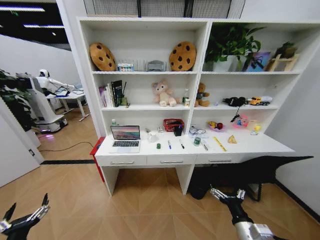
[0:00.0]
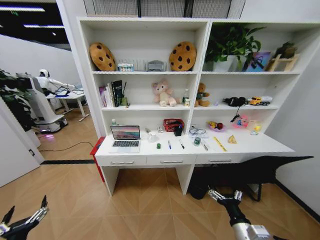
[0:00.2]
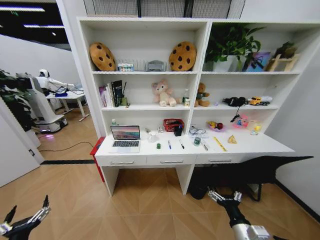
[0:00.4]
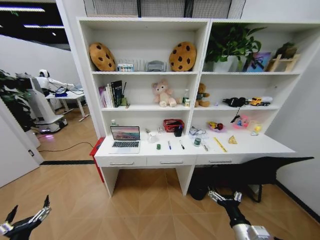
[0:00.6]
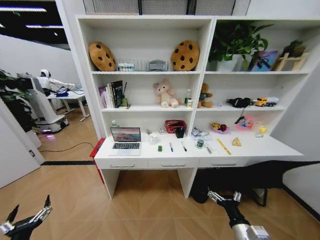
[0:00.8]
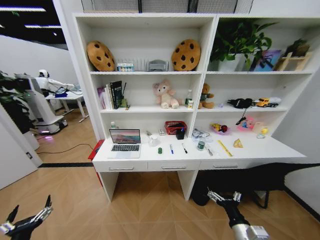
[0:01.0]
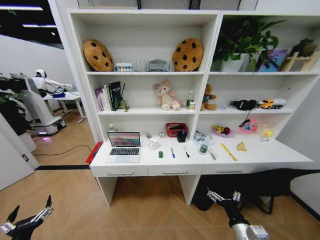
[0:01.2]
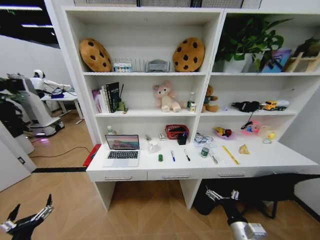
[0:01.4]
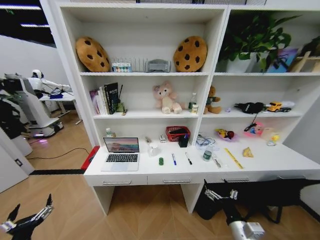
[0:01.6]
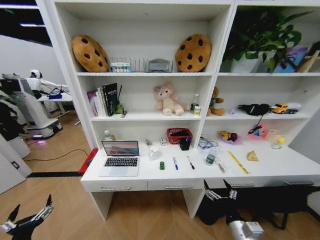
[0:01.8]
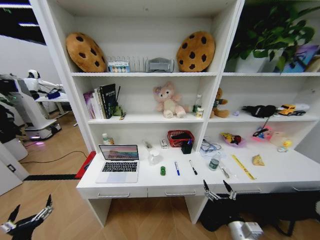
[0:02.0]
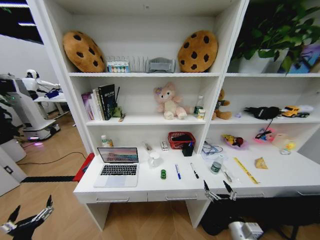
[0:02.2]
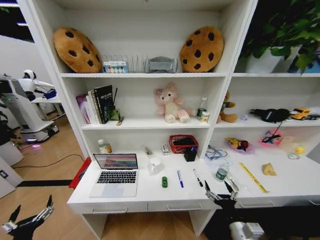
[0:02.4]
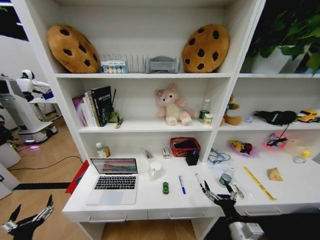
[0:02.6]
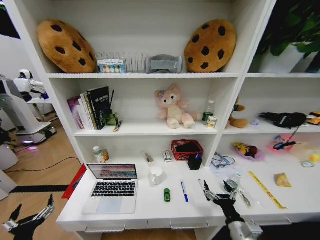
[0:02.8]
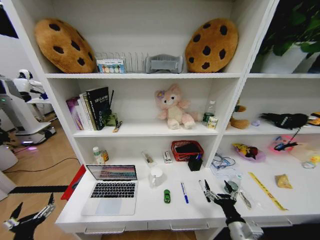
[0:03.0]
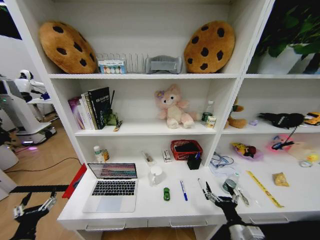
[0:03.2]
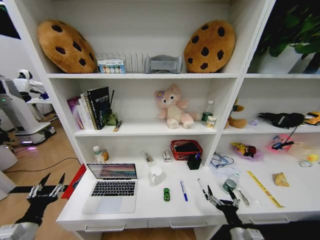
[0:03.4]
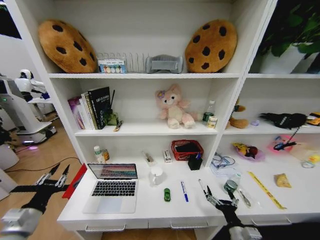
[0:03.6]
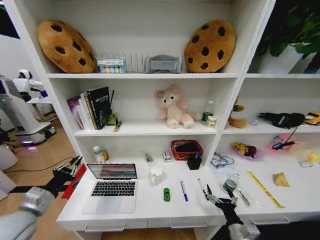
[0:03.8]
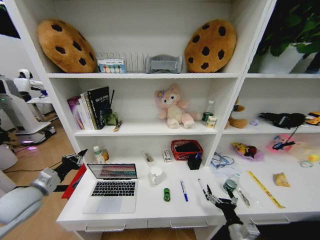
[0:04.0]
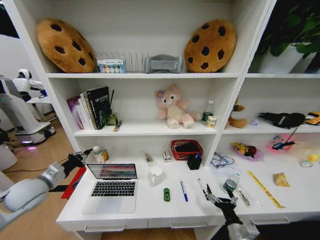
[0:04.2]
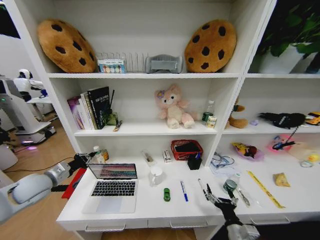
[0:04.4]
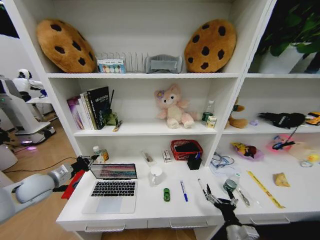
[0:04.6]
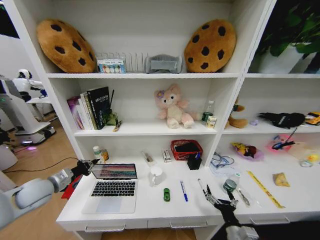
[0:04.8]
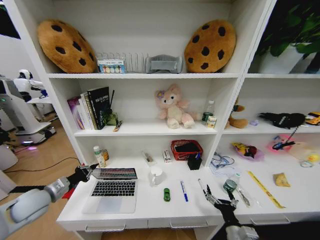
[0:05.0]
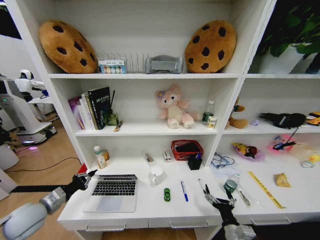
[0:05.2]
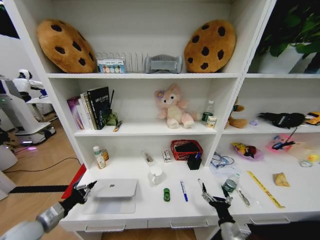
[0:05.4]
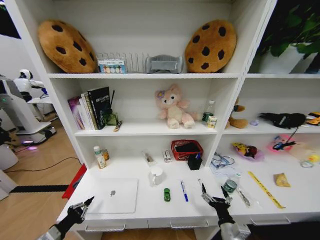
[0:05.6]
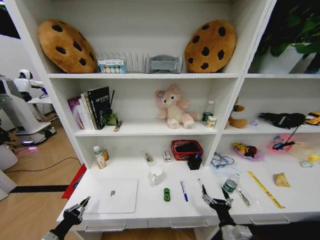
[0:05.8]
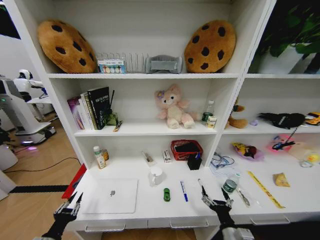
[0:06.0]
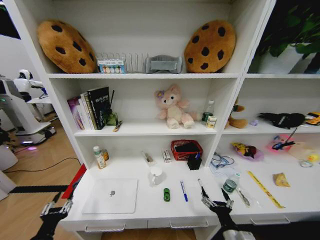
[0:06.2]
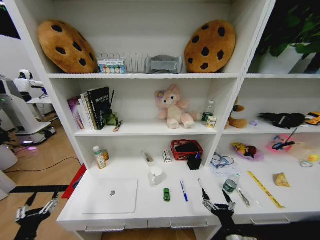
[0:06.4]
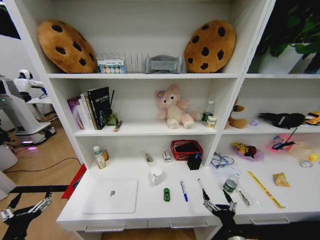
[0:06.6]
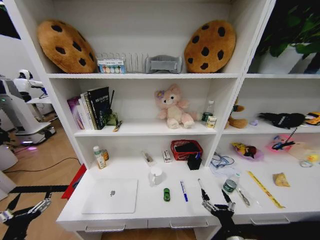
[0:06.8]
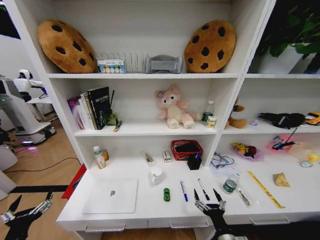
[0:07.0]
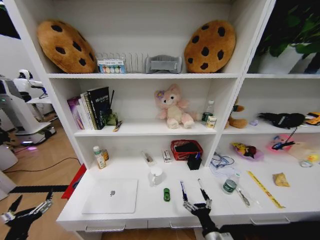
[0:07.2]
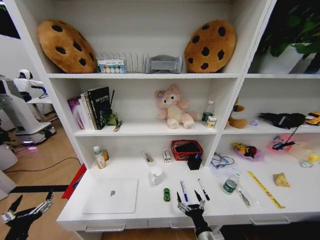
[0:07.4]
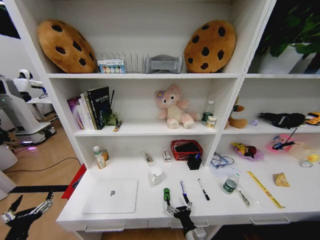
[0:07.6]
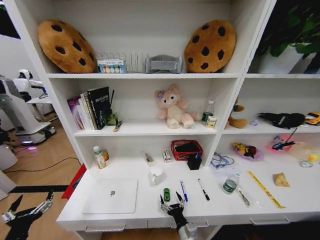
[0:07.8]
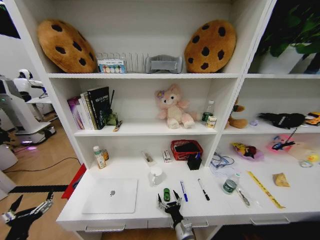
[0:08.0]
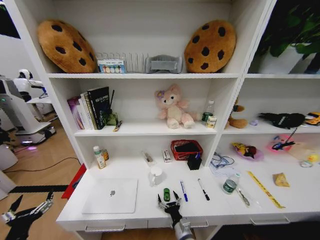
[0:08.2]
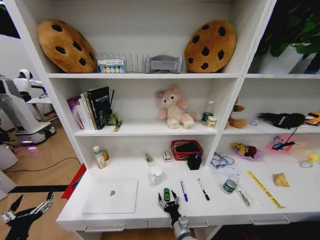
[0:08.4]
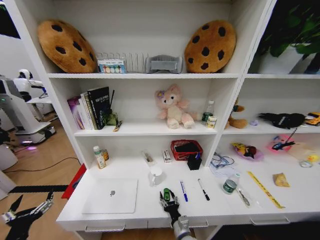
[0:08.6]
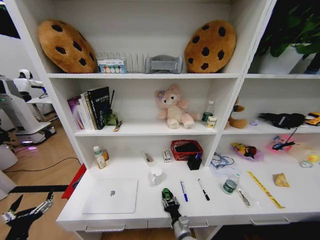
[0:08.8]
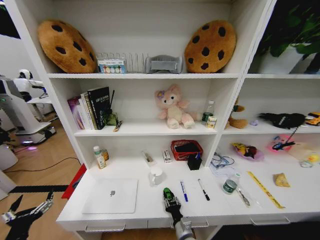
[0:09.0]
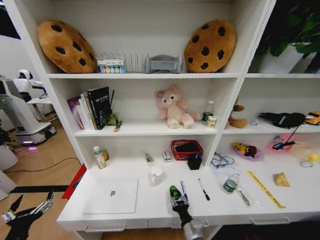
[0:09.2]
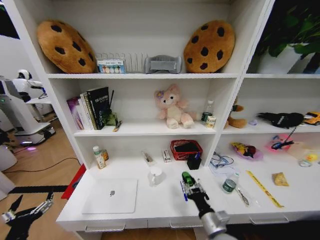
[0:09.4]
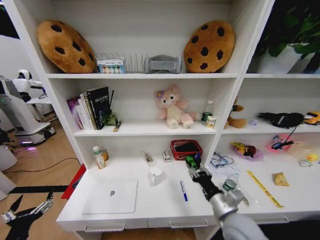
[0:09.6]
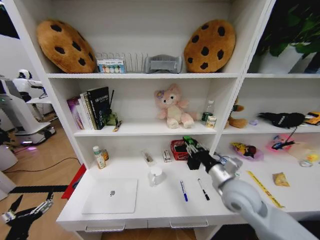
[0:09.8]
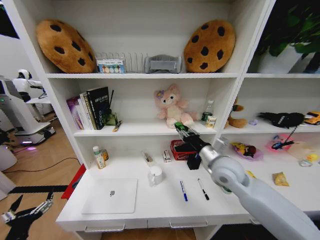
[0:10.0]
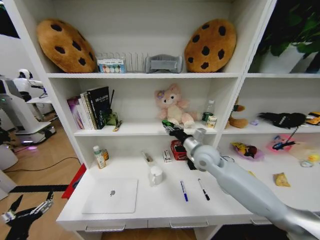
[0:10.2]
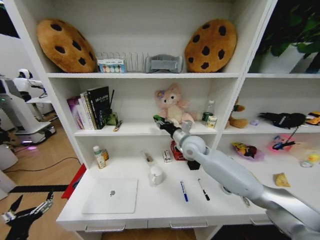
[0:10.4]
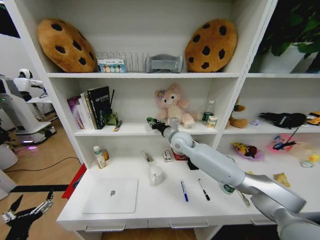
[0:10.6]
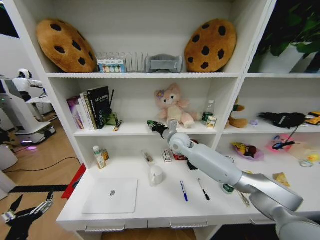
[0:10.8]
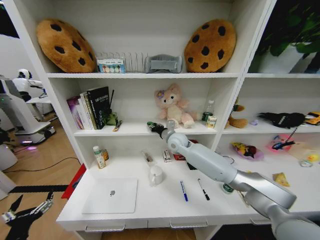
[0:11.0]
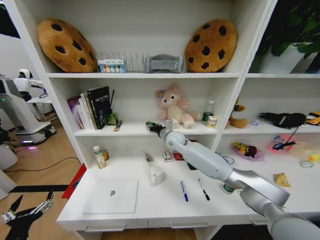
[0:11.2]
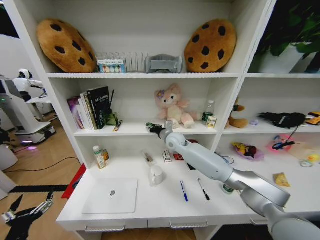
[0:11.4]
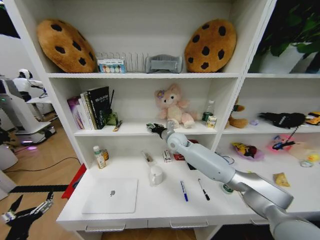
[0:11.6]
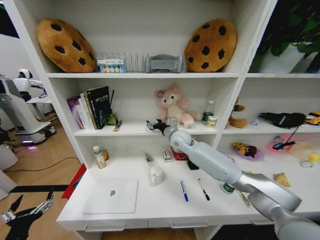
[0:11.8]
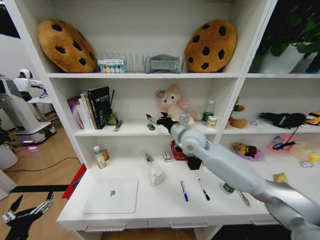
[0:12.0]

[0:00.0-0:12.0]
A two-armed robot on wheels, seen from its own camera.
Task of the whole recording: Organize the objects on the table.
0:03.0 to 0:04.4: The left gripper heads forward and upward, covering approximately 25 cm, and closes up.
0:04.4 to 0:06.0: The left gripper shifts roughly 25 cm backward and downward.
0:06.0 to 0:07.6: The left gripper shifts by approximately 5 cm, and opens up. Meanwhile the right gripper is displaced to the left by some 10 cm.
0:07.6 to 0:09.0: The right gripper shifts by roughly 5 cm, and closes its fingers.
0:09.0 to 0:10.4: The right gripper moves upward and forward, some 40 cm.
0:10.4 to 0:12.0: The right gripper moves some 5 cm forward and comes back, and opens up.

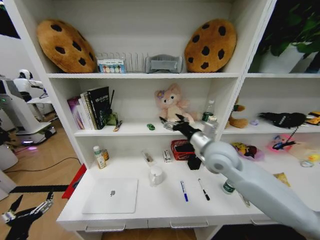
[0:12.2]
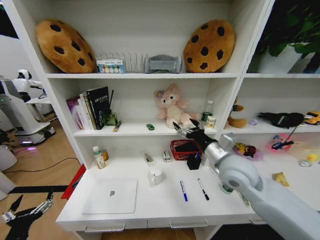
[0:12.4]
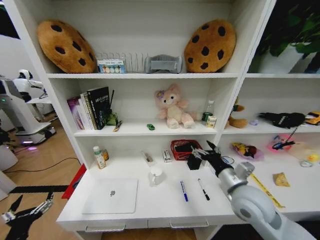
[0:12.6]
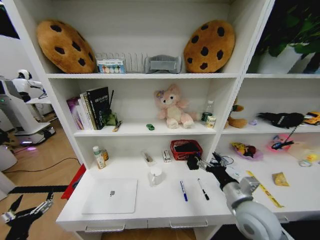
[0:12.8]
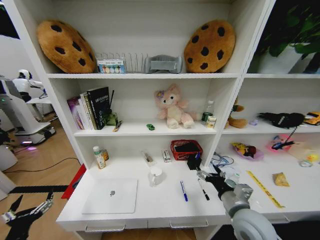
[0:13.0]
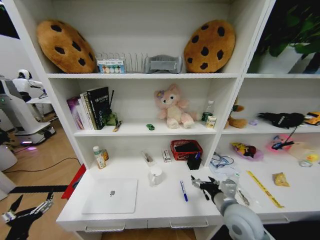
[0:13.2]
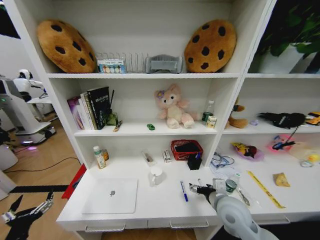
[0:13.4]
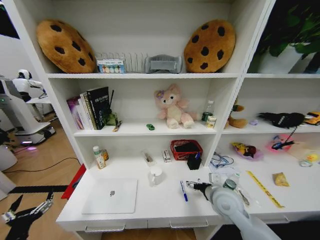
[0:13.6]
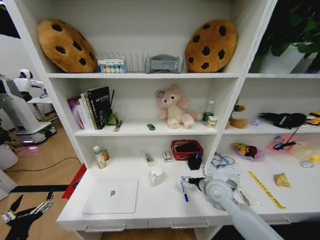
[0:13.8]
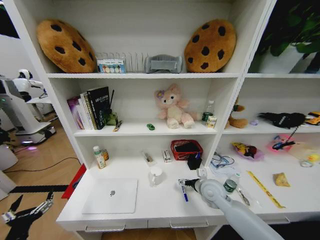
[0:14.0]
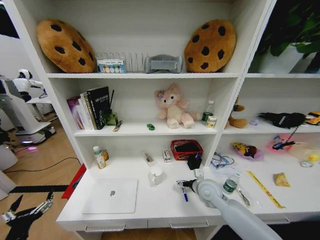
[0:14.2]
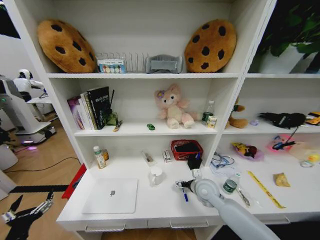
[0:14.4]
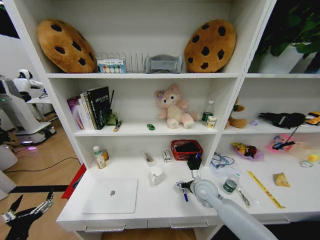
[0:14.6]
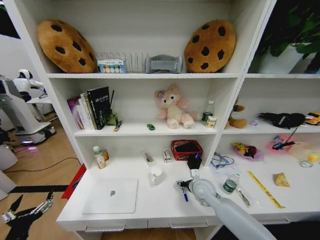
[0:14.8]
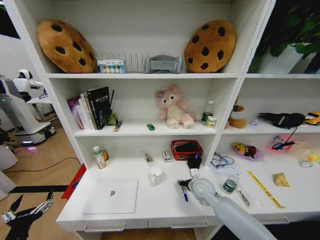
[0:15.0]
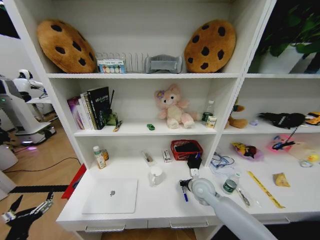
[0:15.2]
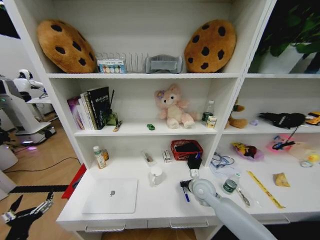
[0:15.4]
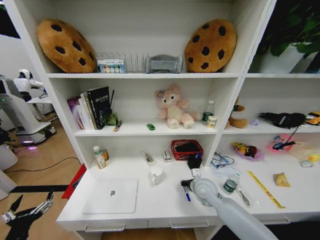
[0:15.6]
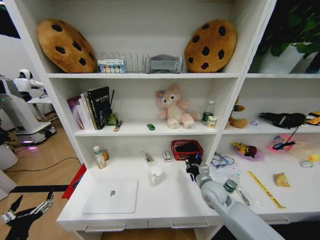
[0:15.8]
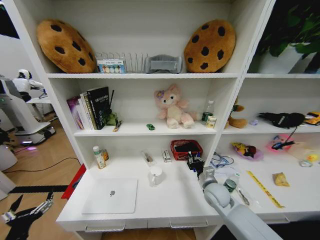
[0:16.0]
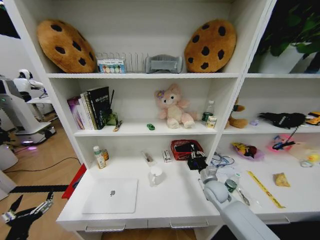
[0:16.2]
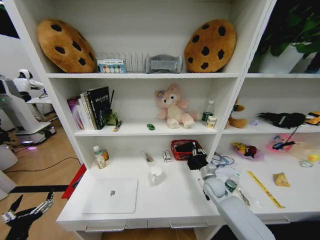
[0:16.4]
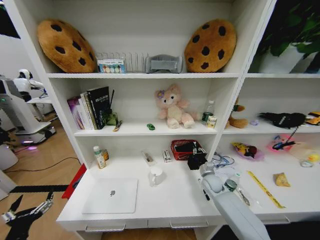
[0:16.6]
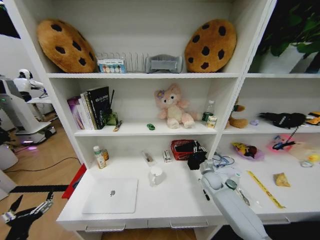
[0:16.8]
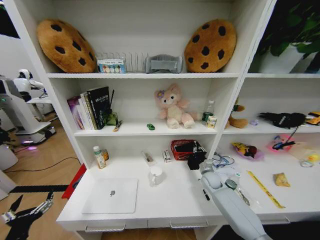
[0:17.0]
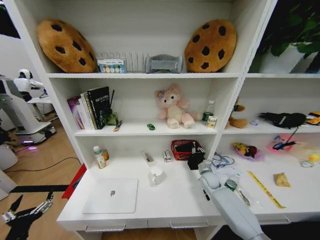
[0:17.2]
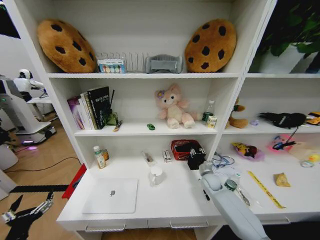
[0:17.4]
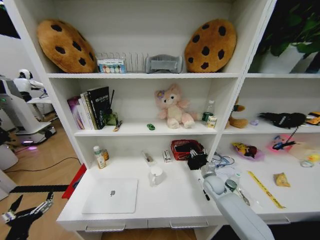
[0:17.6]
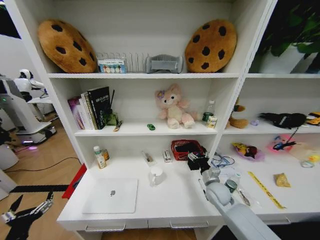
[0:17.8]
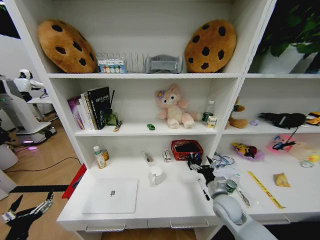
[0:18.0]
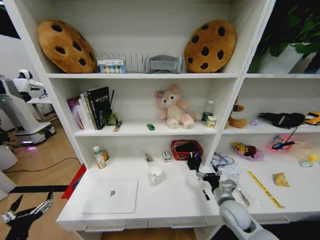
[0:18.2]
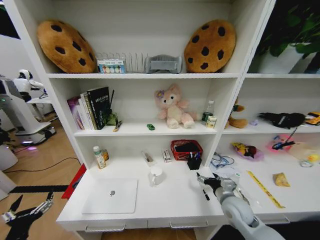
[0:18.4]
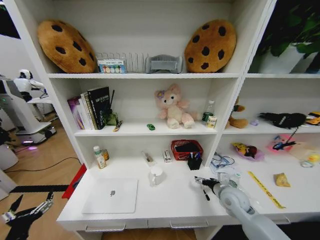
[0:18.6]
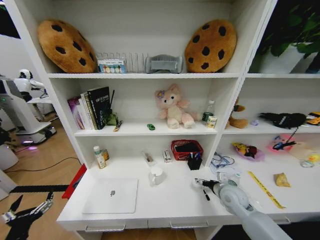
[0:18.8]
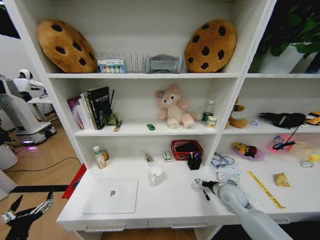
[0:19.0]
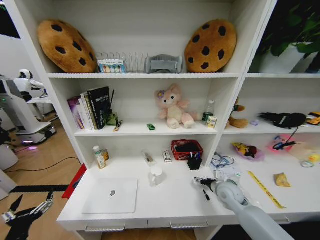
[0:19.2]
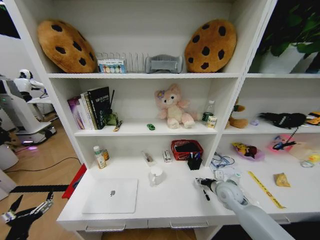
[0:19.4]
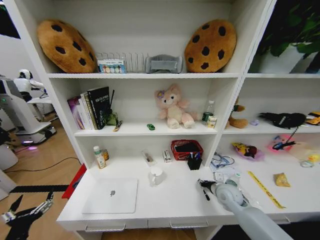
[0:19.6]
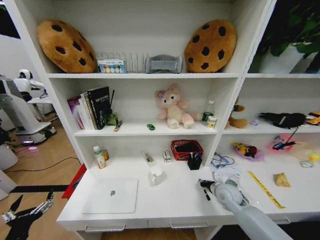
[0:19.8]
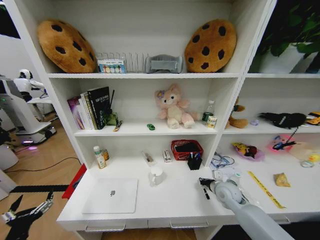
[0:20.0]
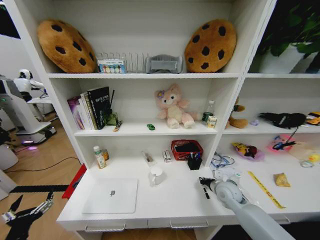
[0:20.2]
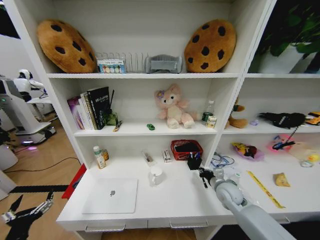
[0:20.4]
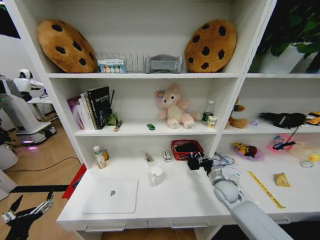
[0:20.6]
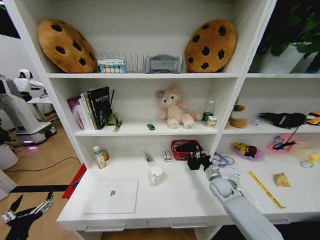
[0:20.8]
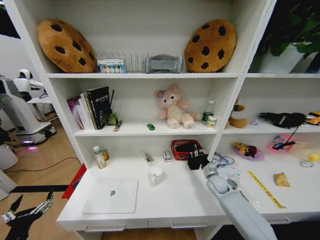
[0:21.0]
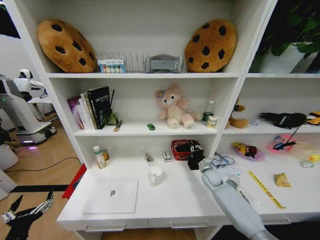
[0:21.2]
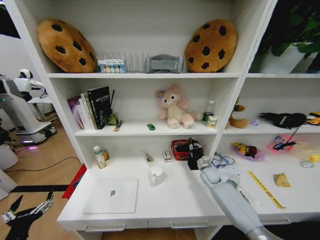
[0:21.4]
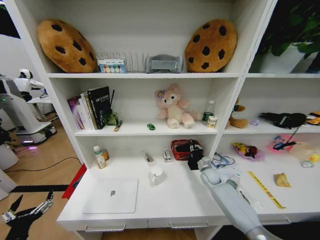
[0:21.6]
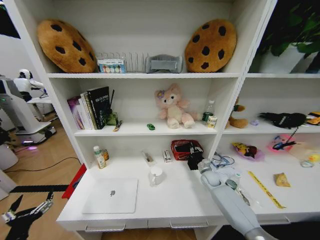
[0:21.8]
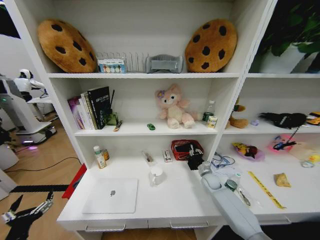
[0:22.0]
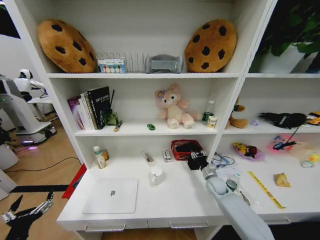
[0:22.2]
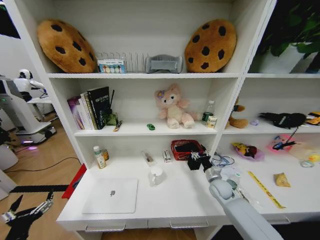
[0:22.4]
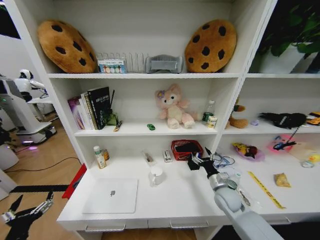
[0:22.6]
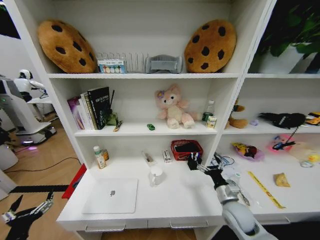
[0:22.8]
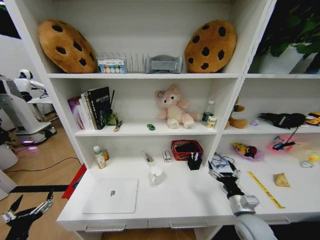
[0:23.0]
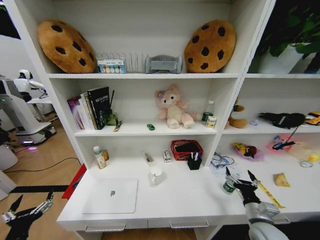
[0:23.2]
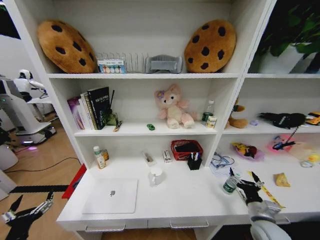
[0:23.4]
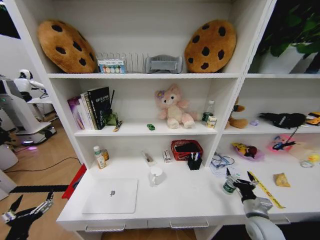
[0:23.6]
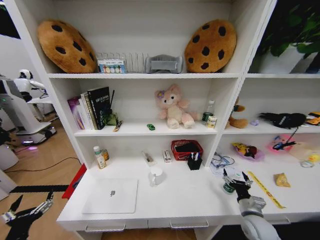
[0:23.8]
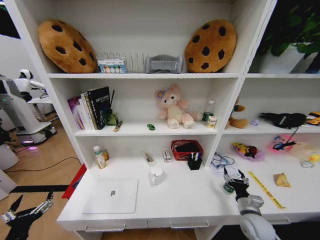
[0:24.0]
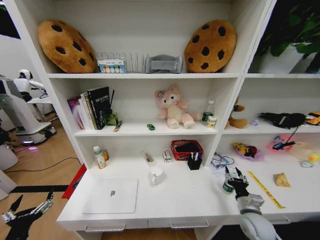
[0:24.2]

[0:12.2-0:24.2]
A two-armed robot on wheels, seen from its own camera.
Task of the whole recording: Organize the objects on the table.
0:12.2 to 0:13.8: The right gripper is displaced downward by roughly 15 cm.
0:13.8 to 0:15.2: The right gripper heads downward, covering about 5 cm, and closes up.
0:15.2 to 0:16.6: The right gripper shifts about 10 cm to the right and downward.
0:16.6 to 0:18.2: The right gripper heads backward, covering some 15 cm, and opens its fingers.
0:18.2 to 0:19.8: The right gripper is displaced forward by roughly 10 cm, and closes up.
0:19.8 to 0:21.2: The right gripper heads forward and downward, covering approximately 10 cm.
0:21.2 to 0:22.6: The right gripper heads backward, covering some 15 cm, and opens up.
0:22.6 to 0:24.2: The right gripper travels backward and to the right by about 10 cm.
